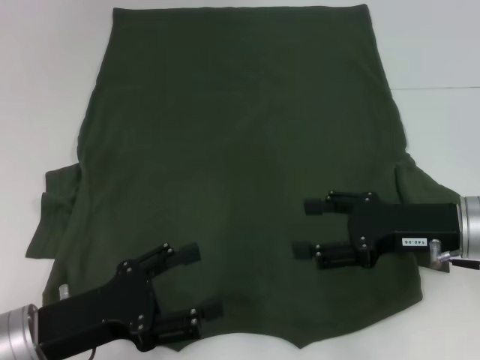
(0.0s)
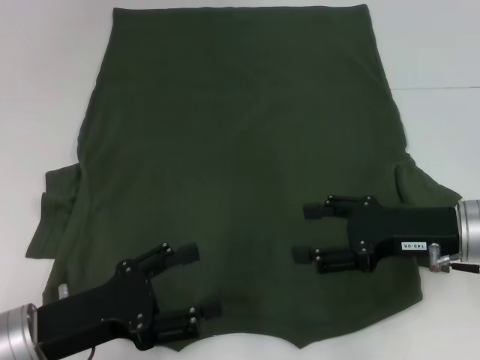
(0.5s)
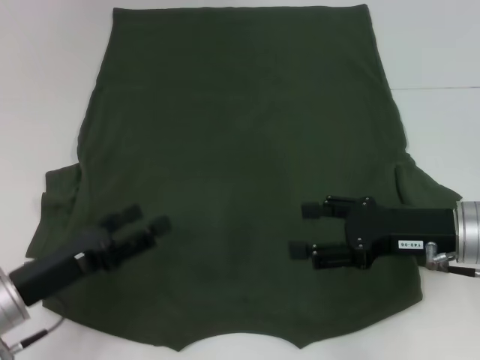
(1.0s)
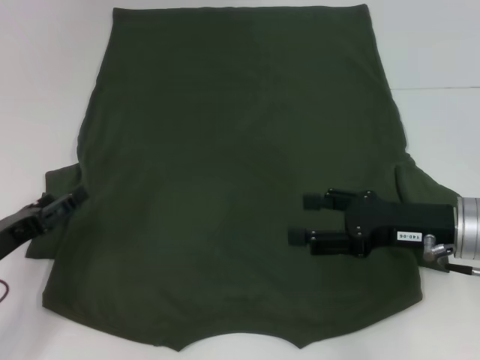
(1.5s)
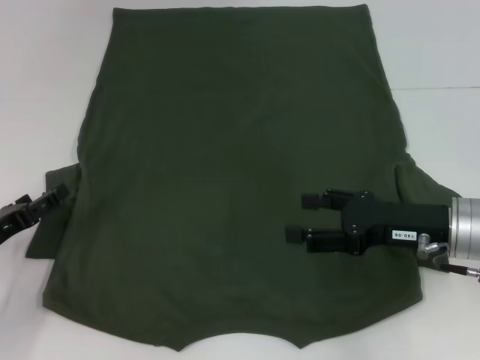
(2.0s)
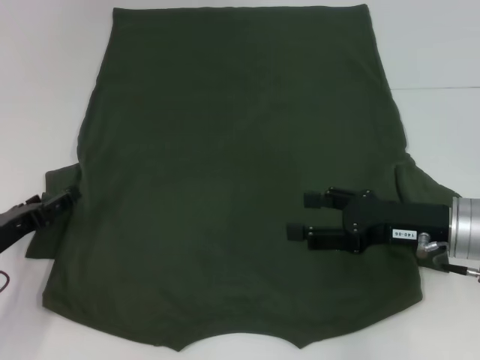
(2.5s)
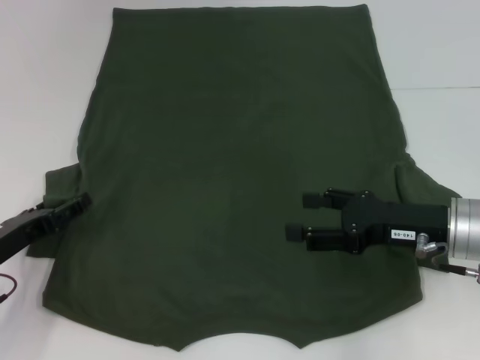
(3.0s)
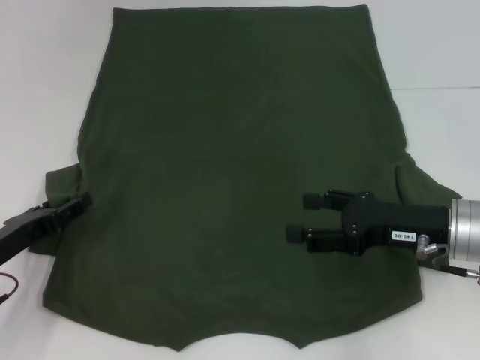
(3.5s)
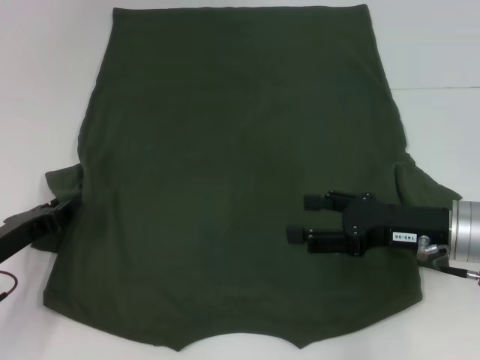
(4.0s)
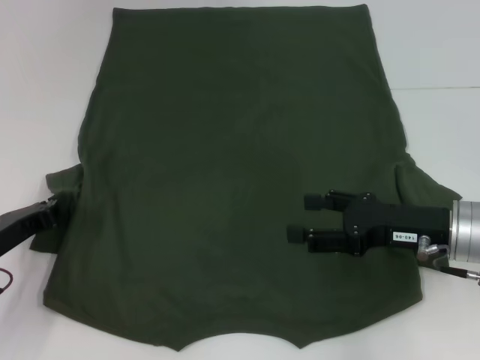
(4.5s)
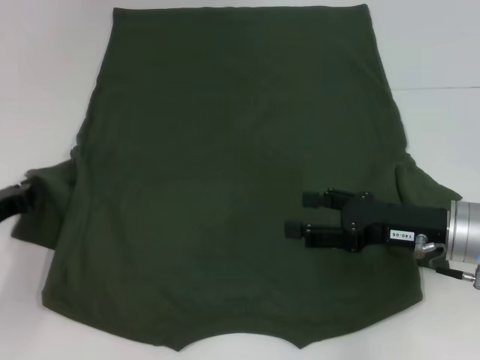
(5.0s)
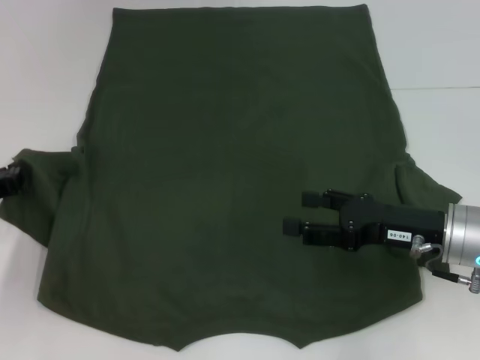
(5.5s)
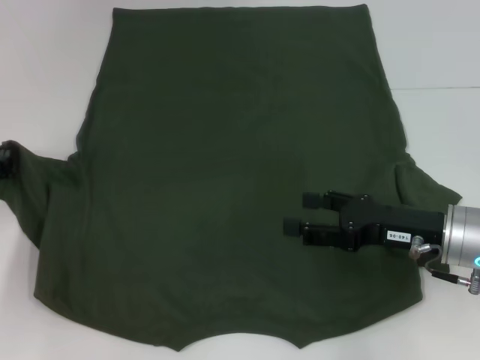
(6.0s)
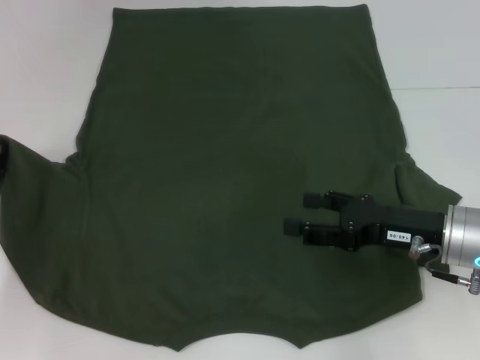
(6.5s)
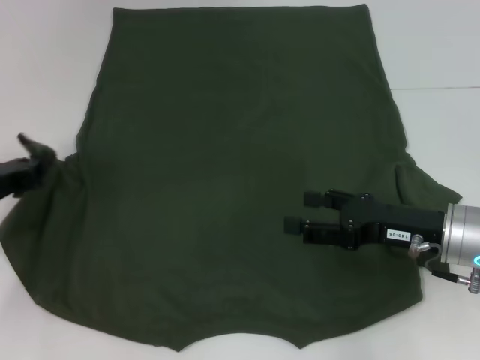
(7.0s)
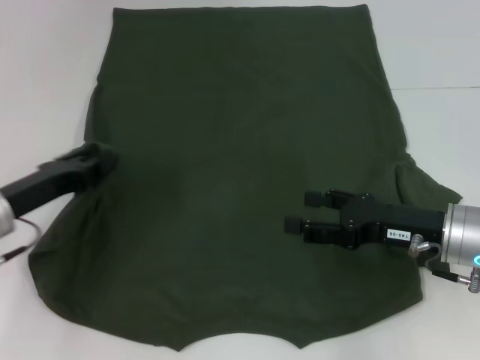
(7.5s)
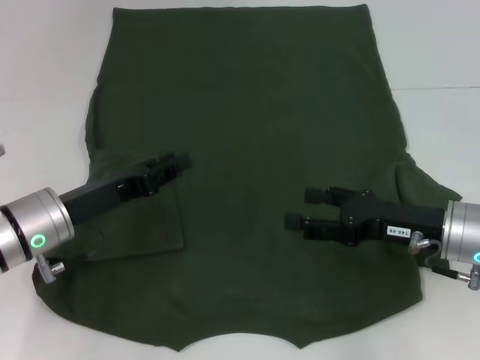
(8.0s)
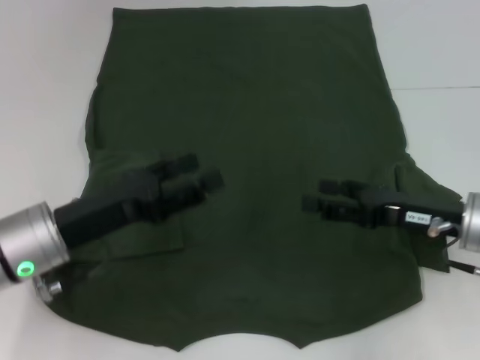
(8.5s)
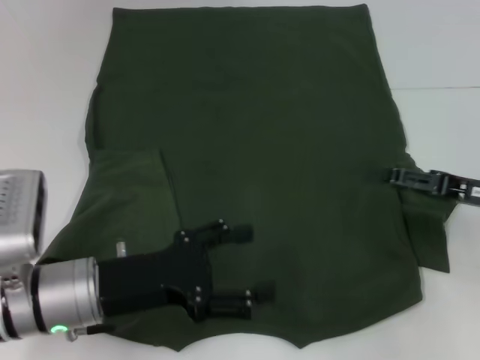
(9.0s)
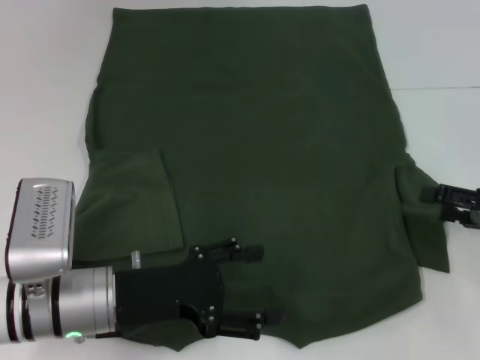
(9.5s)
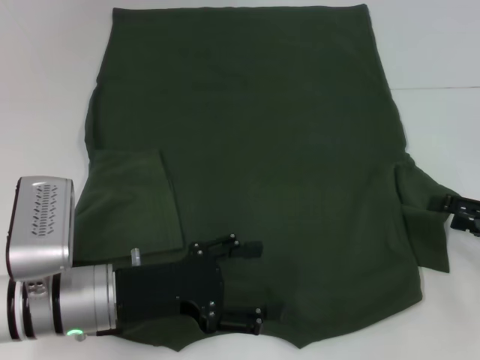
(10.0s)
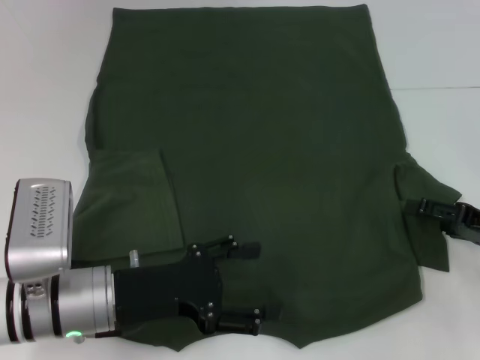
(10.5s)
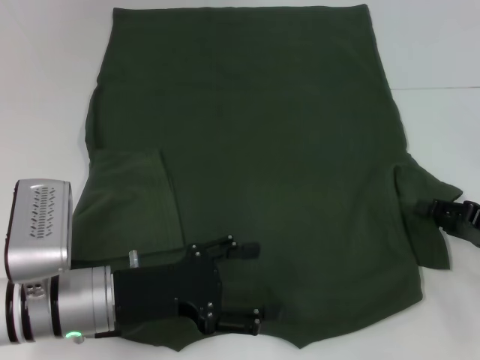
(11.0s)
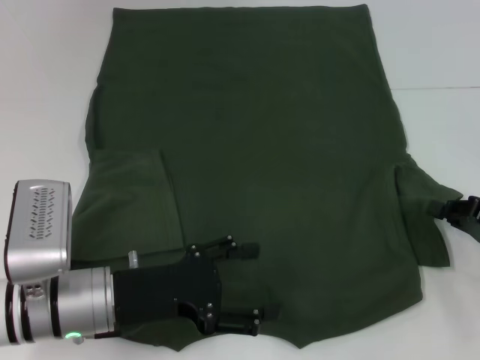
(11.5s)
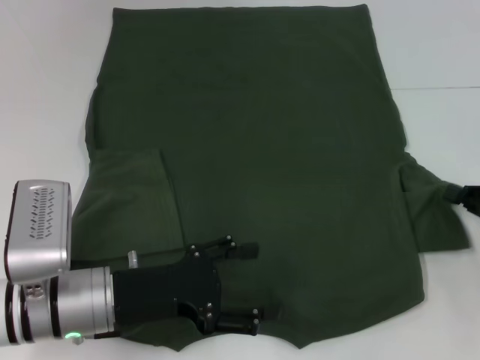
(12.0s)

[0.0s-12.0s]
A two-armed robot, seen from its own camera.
Step, 0.0s to 7.5s: Fold the bottom left sleeve with your left hand.
0.0s to 2.0s: The left gripper moves to the left and forward, roughly 10 cm.
2.0s to 4.0s: The left gripper closes up.
4.0s to 6.0s: The left gripper moves approximately 10 cm, and closes.
6.0s to 8.0s: The left gripper shifts roughly 10 cm to the right.
8.0s to 10.0s: The right gripper travels to the right by about 15 cm, while the left gripper moves backward, approximately 5 cm, and opens up.
10.0s to 12.0s: The right gripper closes its fingers.

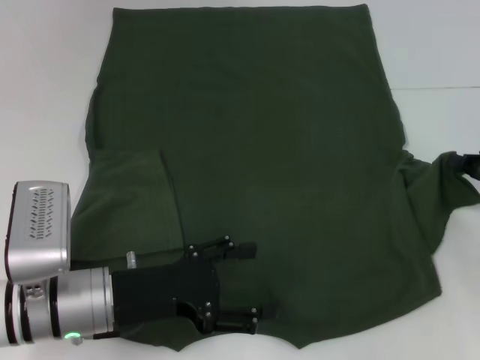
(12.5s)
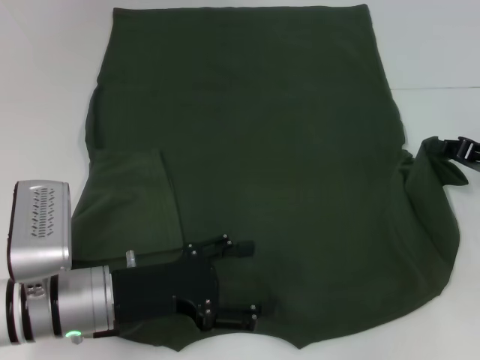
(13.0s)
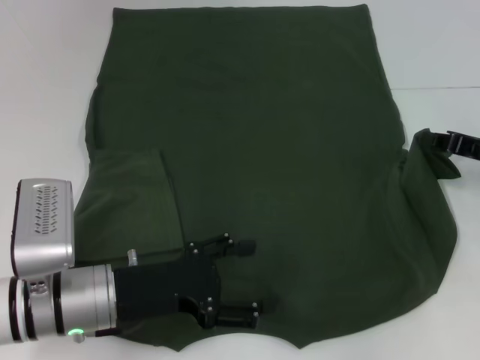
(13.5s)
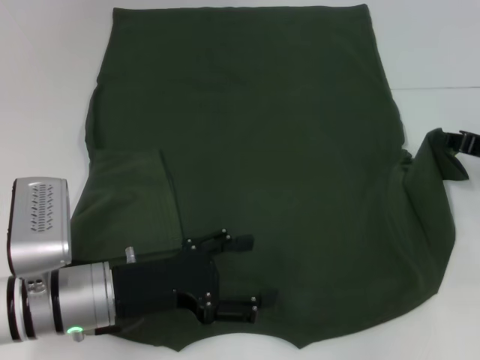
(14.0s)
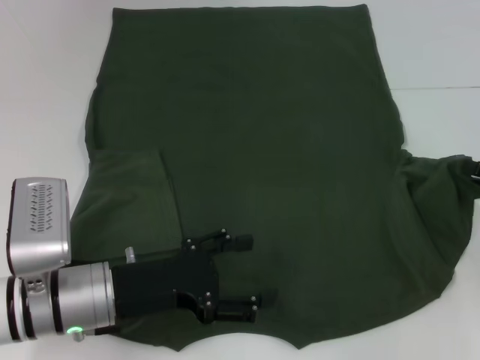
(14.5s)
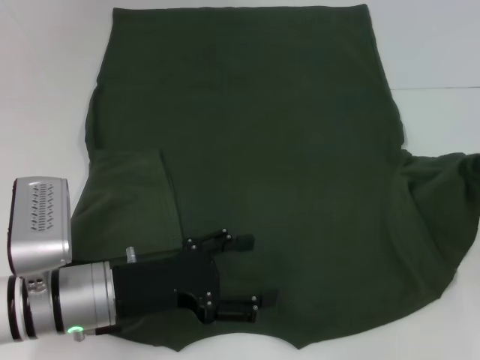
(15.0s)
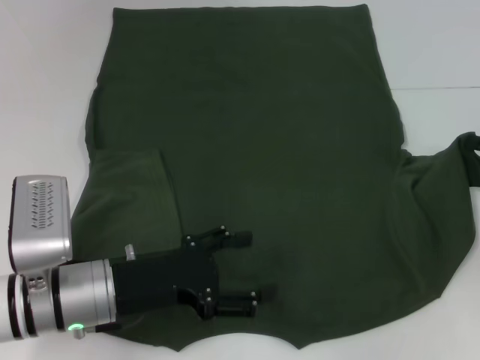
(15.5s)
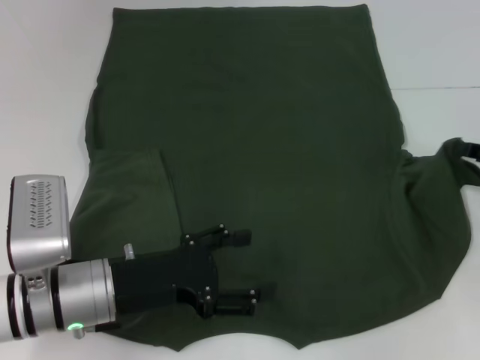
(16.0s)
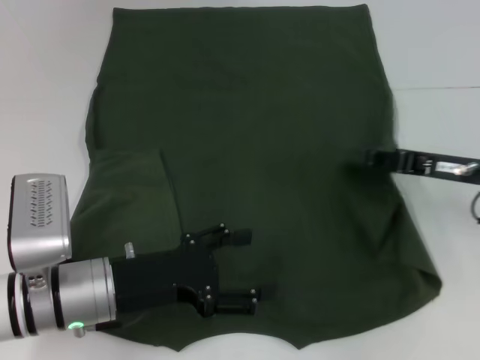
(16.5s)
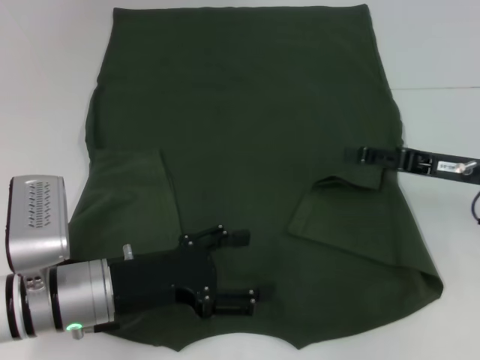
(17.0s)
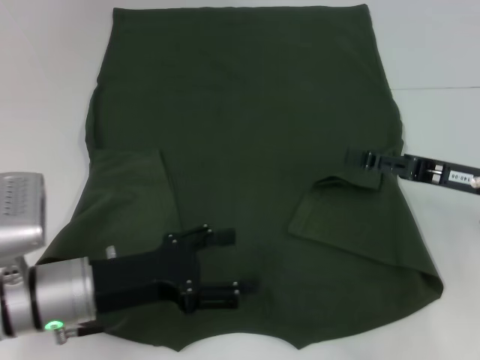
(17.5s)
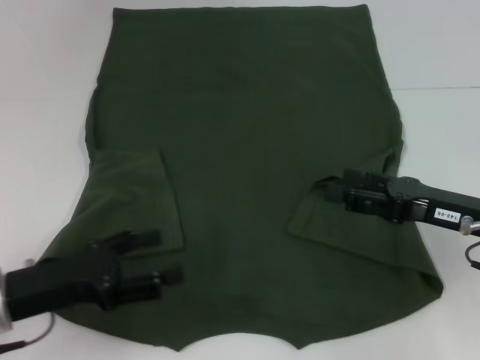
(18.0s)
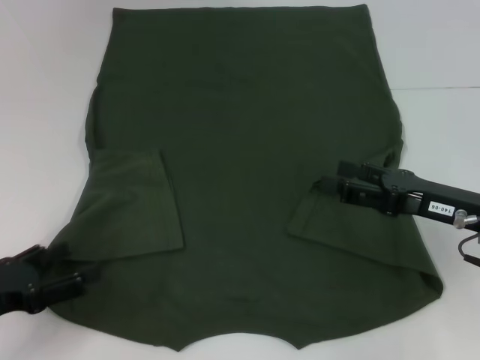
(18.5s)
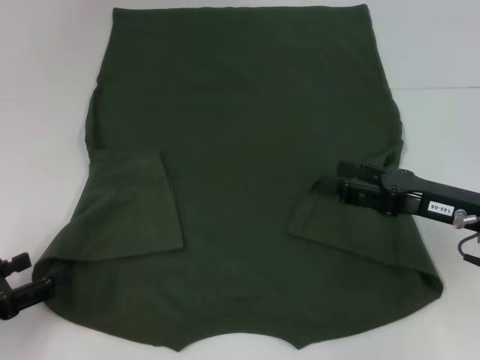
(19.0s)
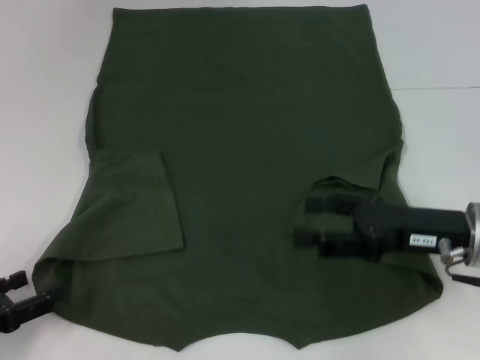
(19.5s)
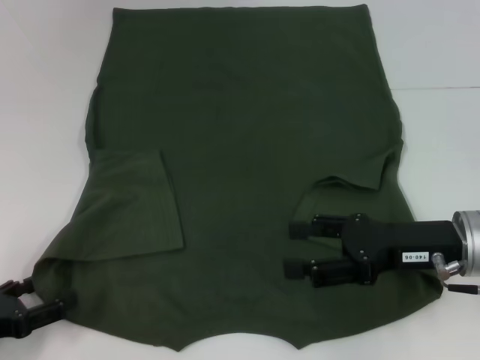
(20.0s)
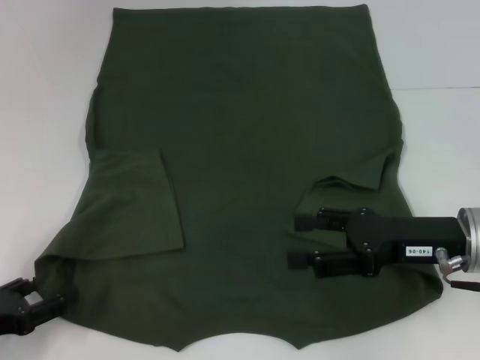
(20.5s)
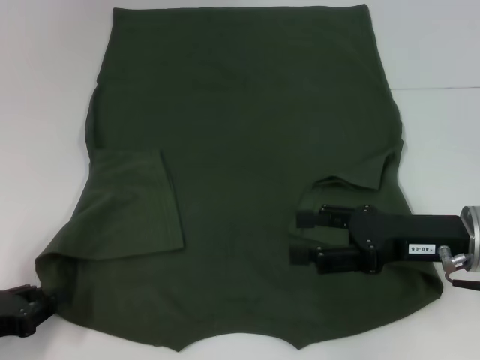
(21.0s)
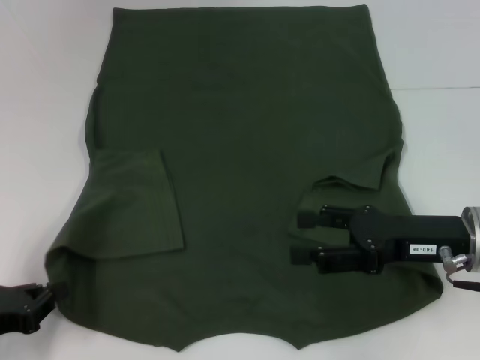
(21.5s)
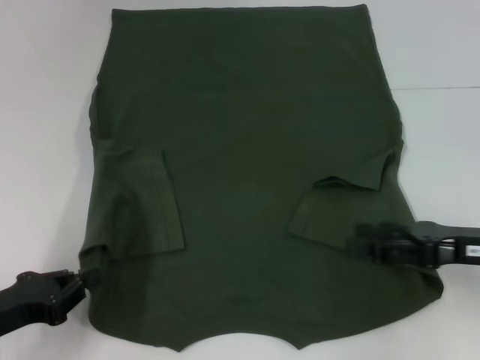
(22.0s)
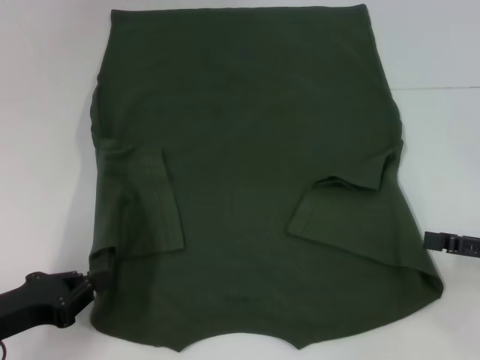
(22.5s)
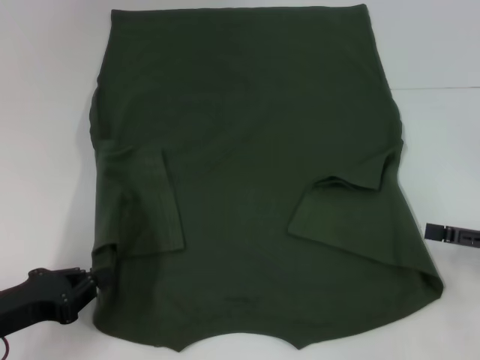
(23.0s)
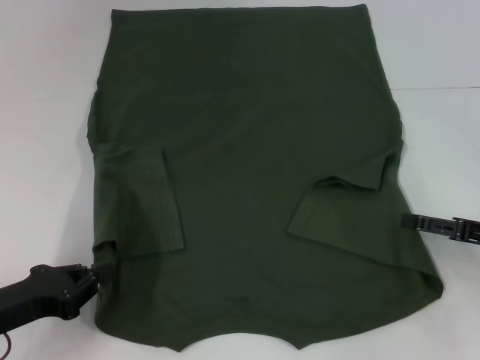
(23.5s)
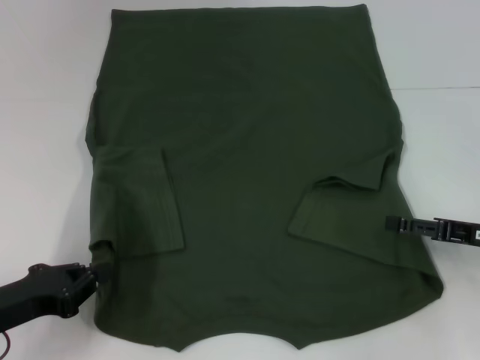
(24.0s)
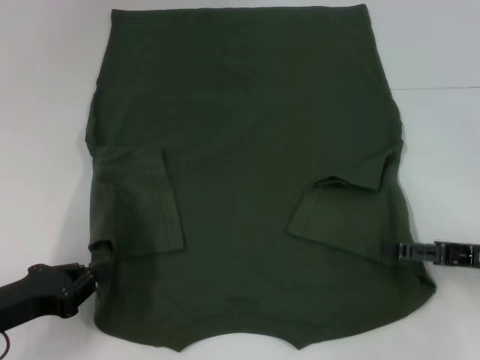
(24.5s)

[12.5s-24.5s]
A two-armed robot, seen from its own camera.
Step, 12.5s to 16.5s: Fold the bottom right sleeve with your right hand.
Step, 17.0s to 21.5s: Grab the bottom left corner with your left hand.
12.5s to 14.5s: There are only small adjustments of the grippers.
14.5s to 16.5s: The right gripper heads to the left, covering roughly 10 cm.
16.5s to 18.5s: The left gripper travels to the left by approximately 15 cm. The right gripper moves some 5 cm, and opens up.
20.5s to 22.5s: The right gripper shifts some 10 cm to the right, while the left gripper closes up.
22.5s to 24.5s: The right gripper shifts by roughly 5 cm.

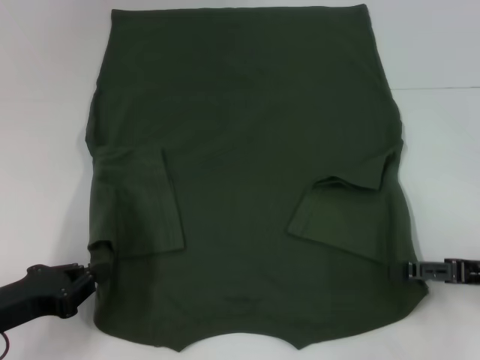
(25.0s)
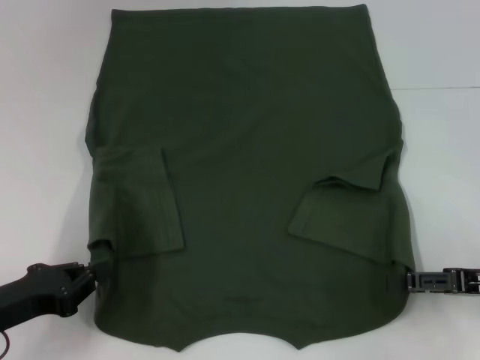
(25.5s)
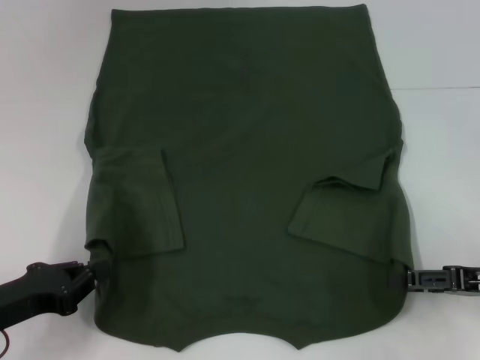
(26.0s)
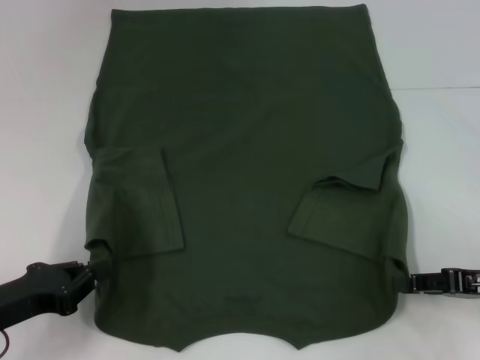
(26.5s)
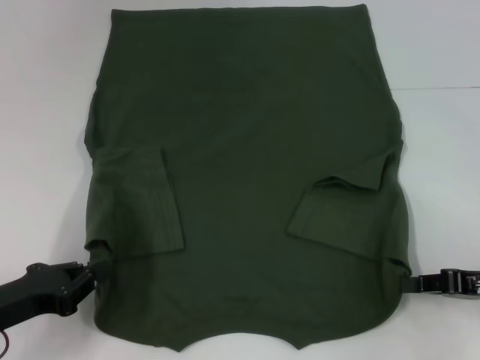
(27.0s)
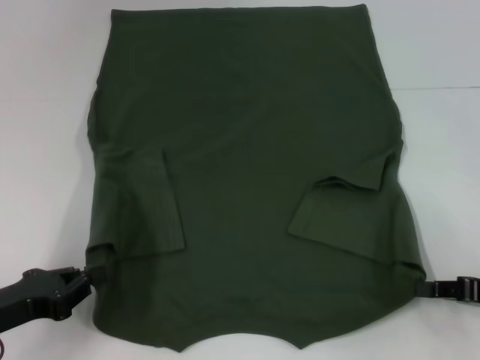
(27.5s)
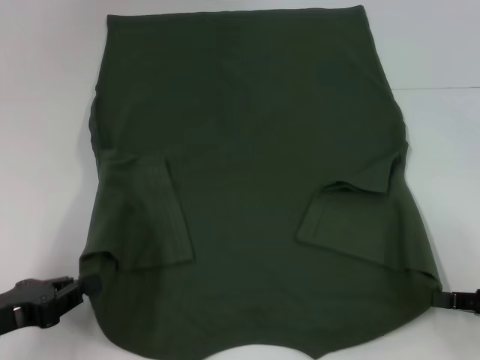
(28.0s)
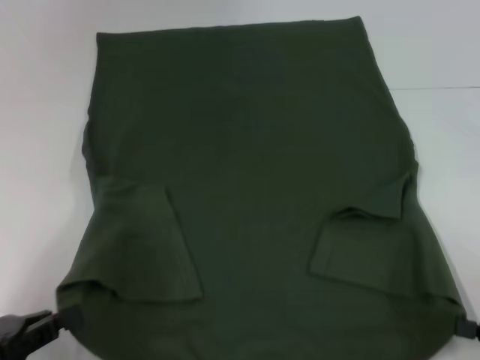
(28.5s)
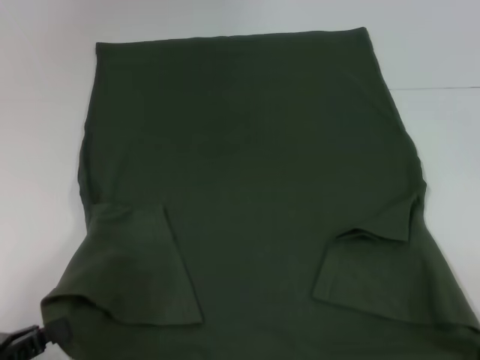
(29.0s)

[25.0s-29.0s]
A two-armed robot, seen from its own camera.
Step, 25.0s to 27.0s: Grab the bottom right corner with your right hand.
25.0s to 27.0s: The right gripper closes.
27.0s to 29.0s: The left gripper is displaced backward by about 10 cm; the right gripper shifts about 15 cm backward and to the right.
